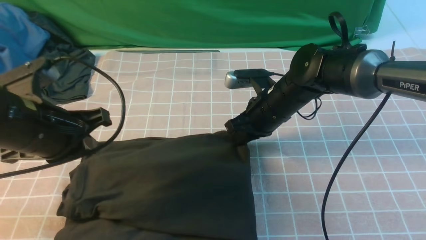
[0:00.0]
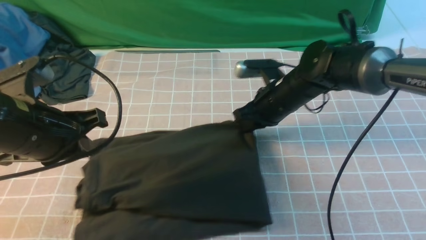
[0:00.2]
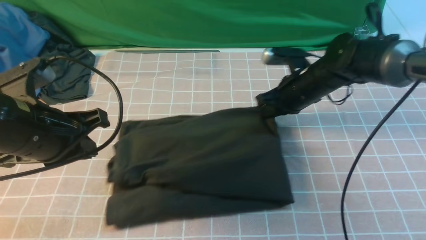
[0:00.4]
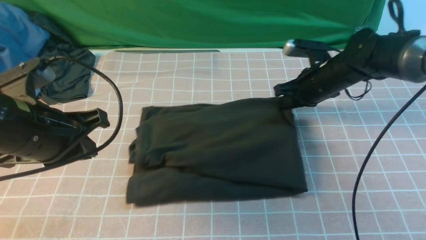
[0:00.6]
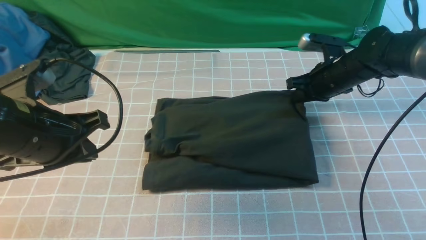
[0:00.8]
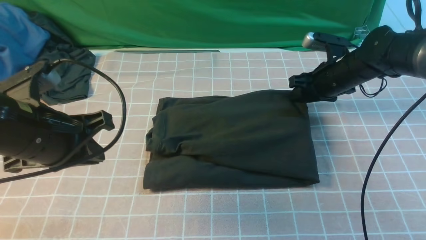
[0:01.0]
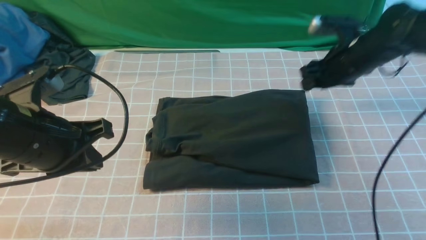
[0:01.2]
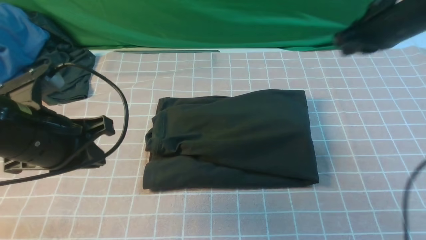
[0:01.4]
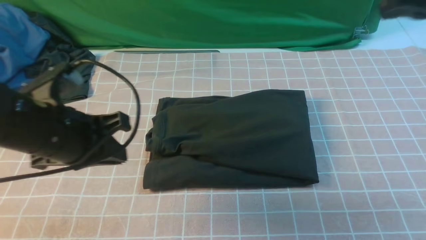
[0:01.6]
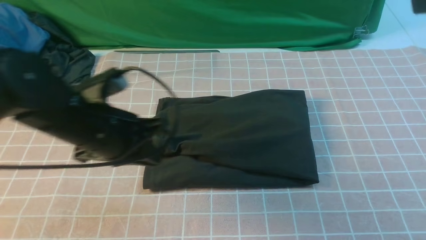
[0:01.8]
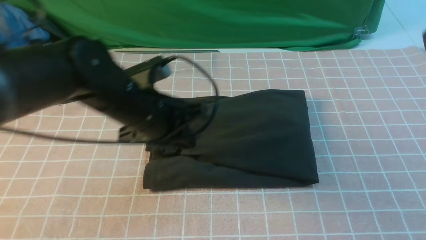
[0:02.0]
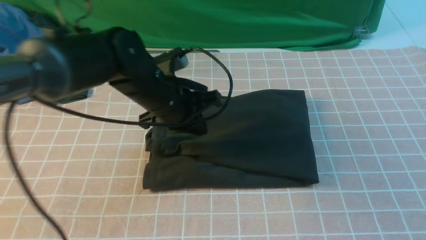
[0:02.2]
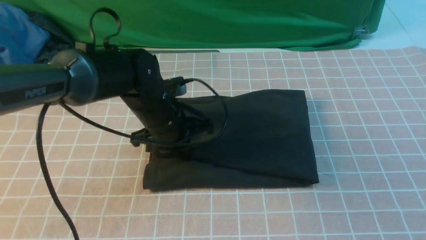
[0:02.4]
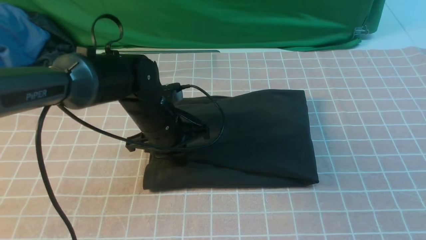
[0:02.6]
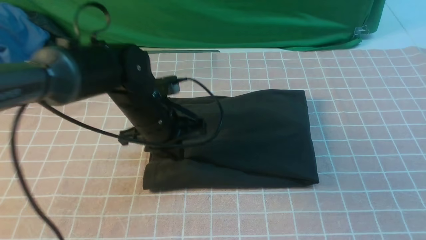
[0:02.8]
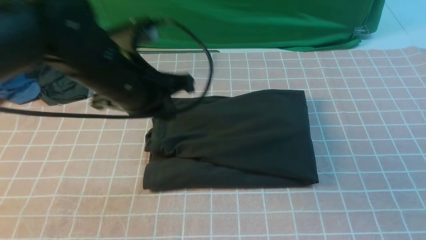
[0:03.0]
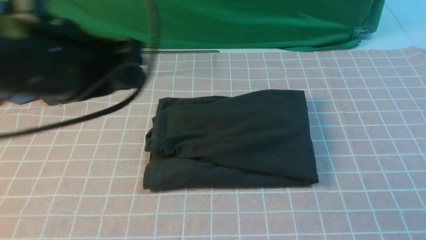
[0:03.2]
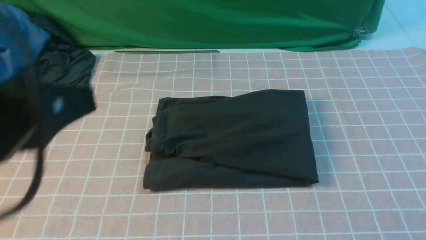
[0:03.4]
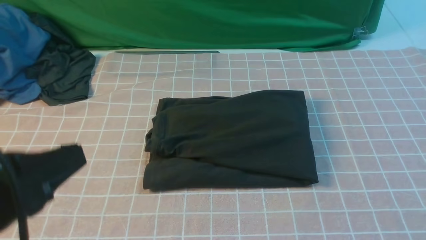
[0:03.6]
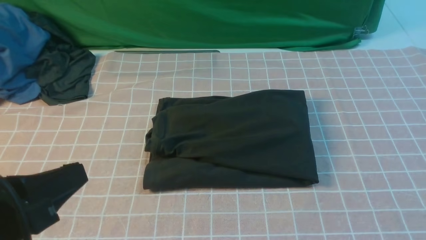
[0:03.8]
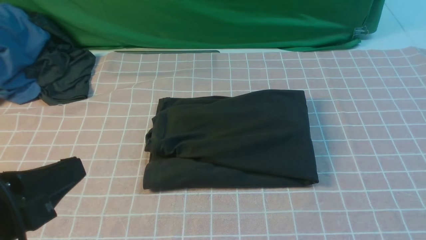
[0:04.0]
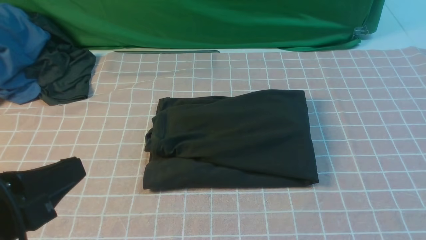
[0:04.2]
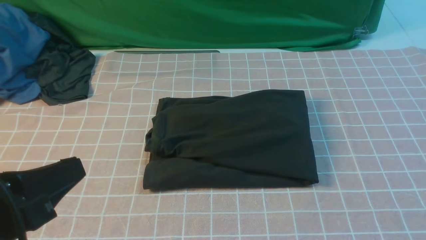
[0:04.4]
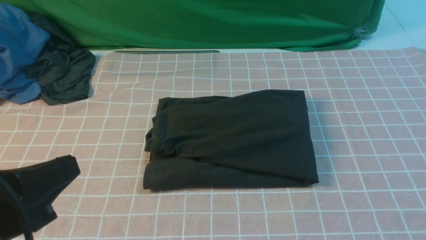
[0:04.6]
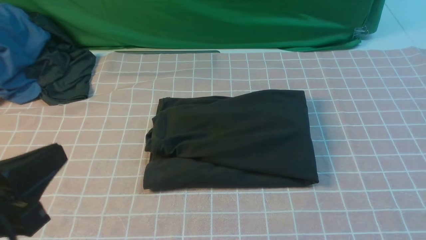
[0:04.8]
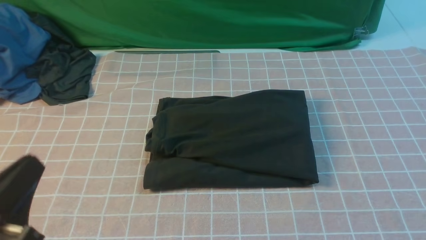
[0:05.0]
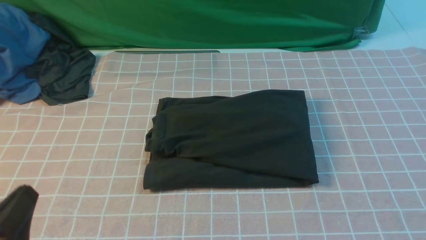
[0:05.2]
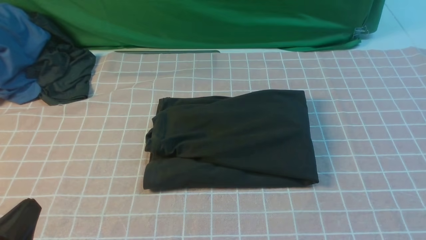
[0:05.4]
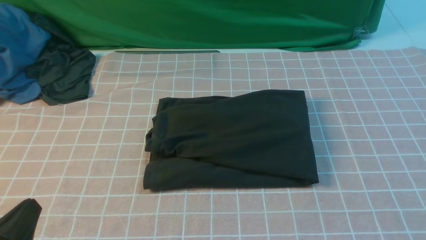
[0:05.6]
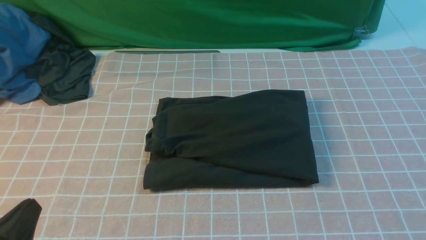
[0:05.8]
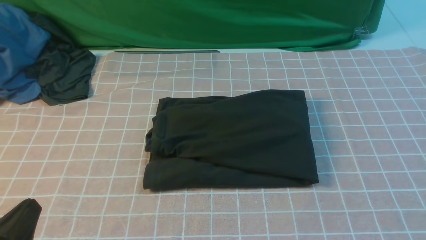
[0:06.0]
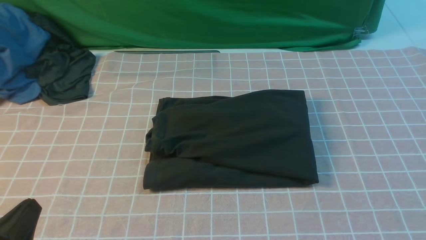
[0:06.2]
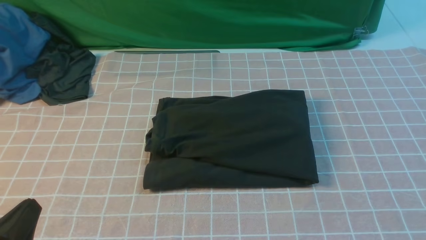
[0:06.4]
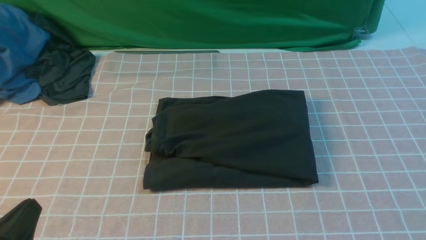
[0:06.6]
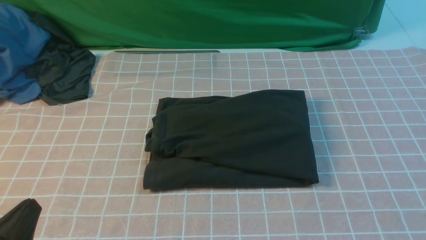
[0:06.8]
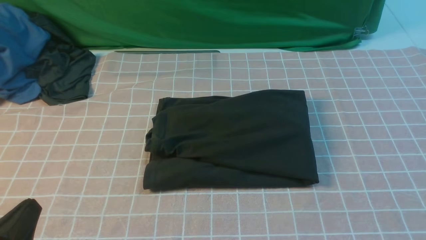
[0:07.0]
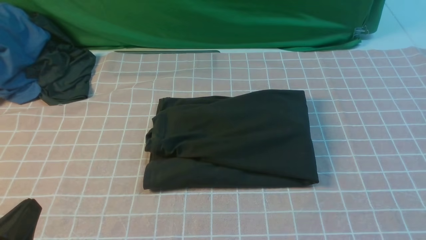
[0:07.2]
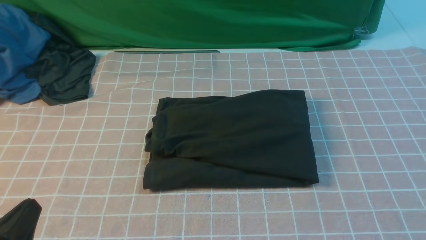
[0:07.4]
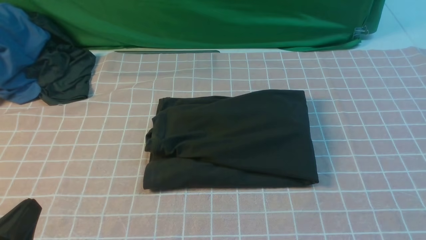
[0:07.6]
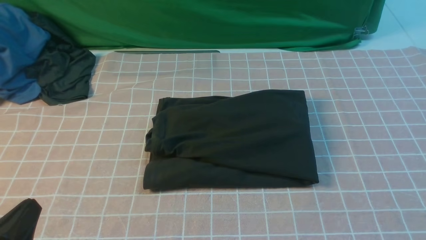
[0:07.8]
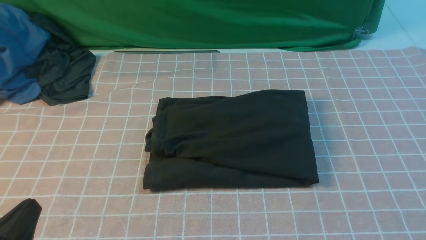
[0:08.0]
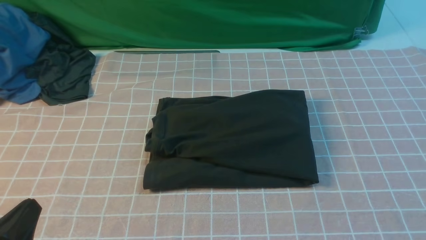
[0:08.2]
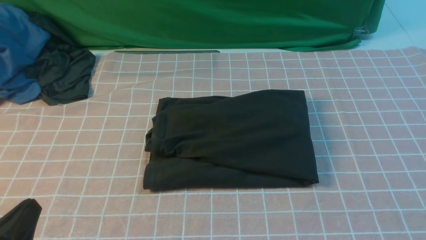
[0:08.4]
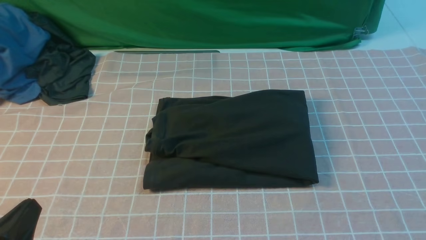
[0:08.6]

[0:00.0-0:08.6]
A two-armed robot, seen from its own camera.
0:00.0 to 0:01.4: The right gripper goes about 25 cm upward and to the right.
0:01.4 to 0:02.8: The right gripper heads backward and upward, covering about 25 cm. Meanwhile the left gripper moves forward and to the right, some 15 cm.
0:02.8 to 0:04.4: The left gripper goes roughly 25 cm backward and to the left; the right gripper goes roughly 20 cm backward.
0:04.4 to 0:05.8: The left gripper goes about 10 cm downward.
